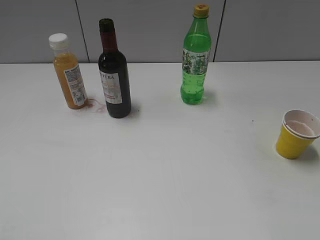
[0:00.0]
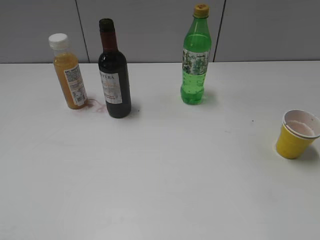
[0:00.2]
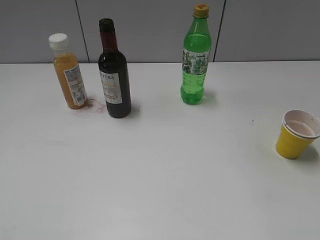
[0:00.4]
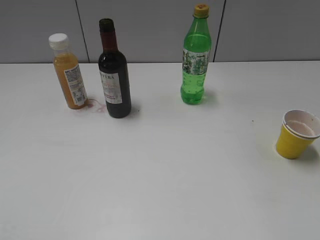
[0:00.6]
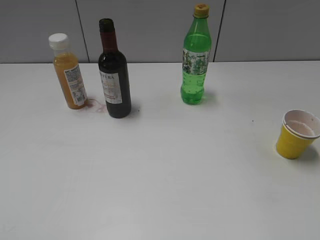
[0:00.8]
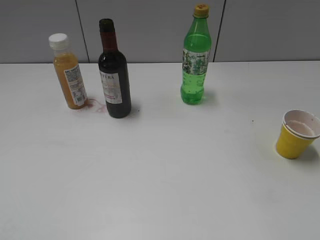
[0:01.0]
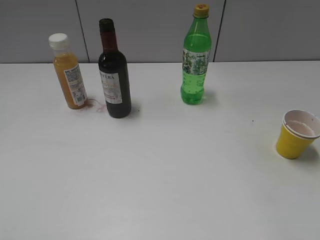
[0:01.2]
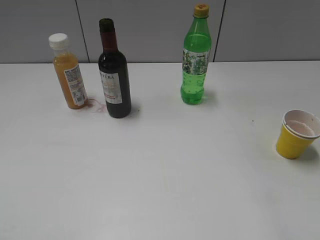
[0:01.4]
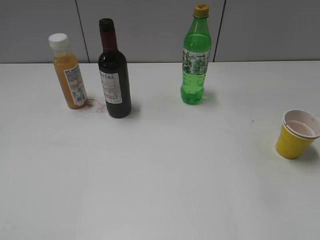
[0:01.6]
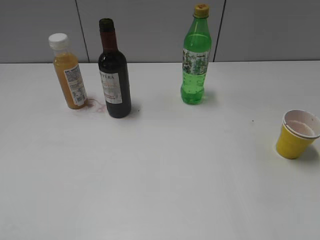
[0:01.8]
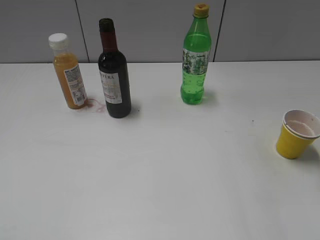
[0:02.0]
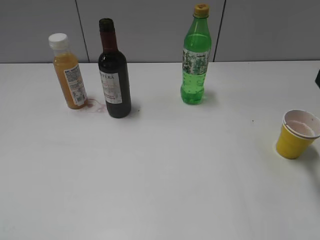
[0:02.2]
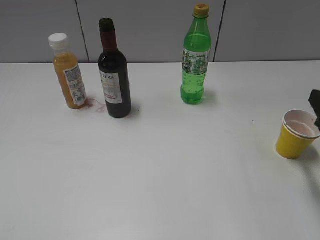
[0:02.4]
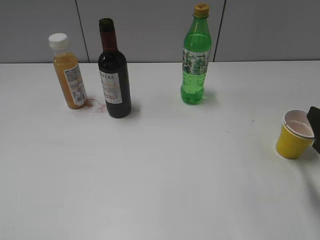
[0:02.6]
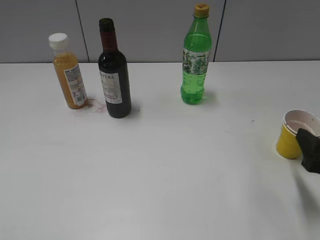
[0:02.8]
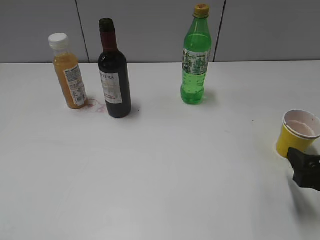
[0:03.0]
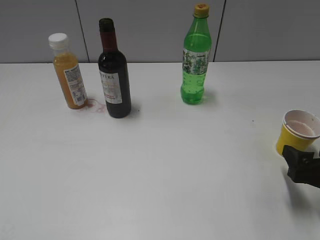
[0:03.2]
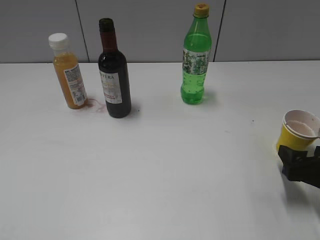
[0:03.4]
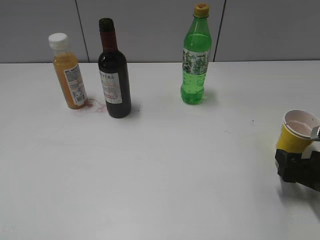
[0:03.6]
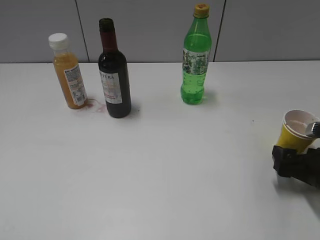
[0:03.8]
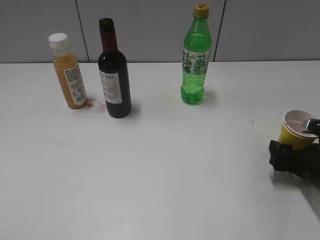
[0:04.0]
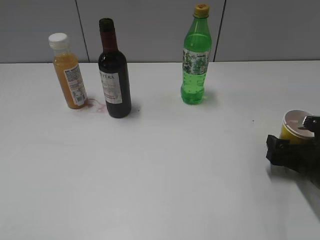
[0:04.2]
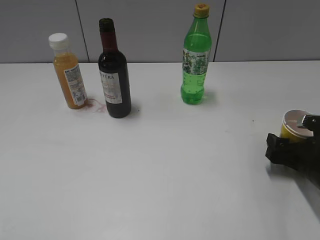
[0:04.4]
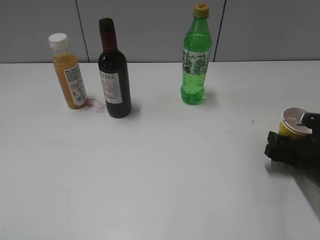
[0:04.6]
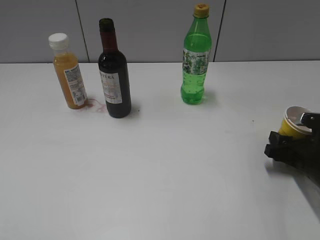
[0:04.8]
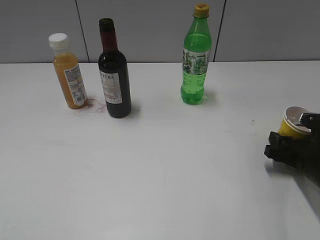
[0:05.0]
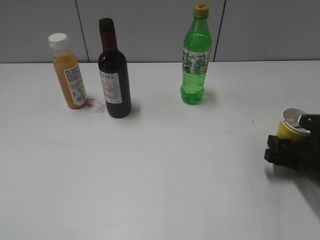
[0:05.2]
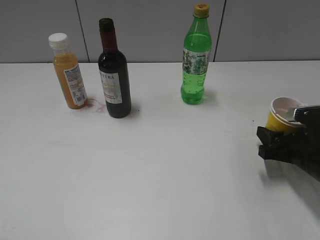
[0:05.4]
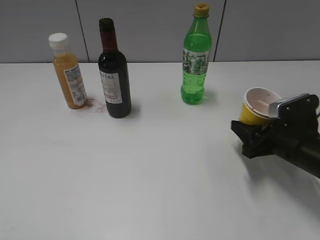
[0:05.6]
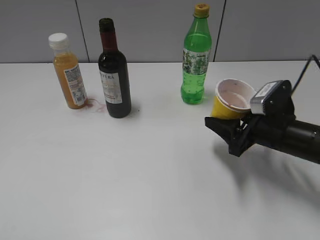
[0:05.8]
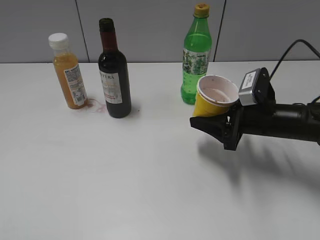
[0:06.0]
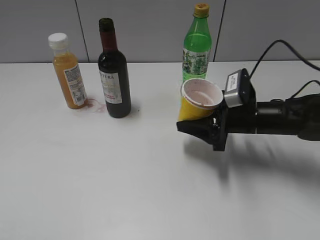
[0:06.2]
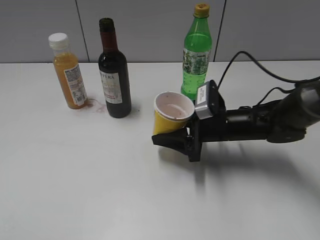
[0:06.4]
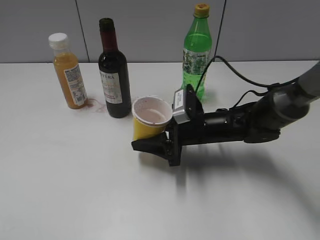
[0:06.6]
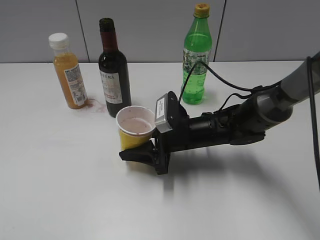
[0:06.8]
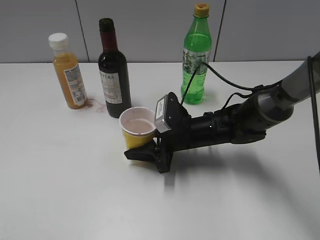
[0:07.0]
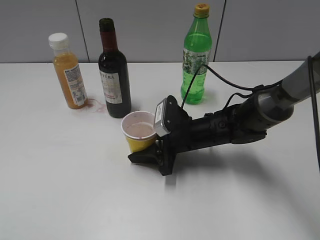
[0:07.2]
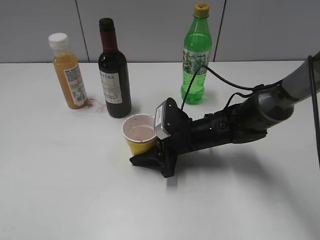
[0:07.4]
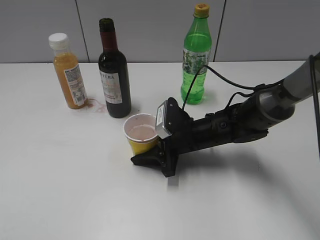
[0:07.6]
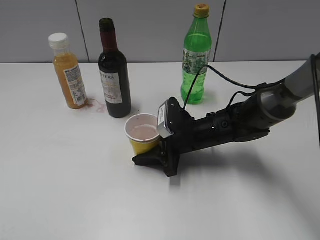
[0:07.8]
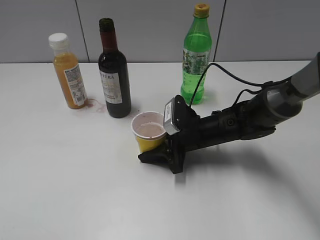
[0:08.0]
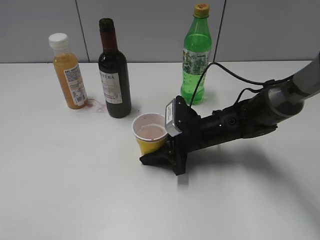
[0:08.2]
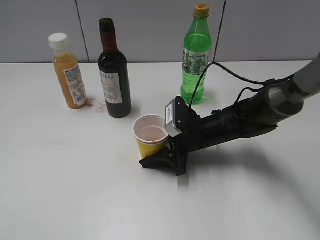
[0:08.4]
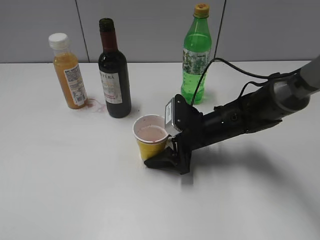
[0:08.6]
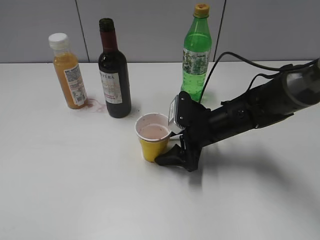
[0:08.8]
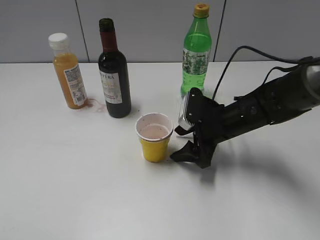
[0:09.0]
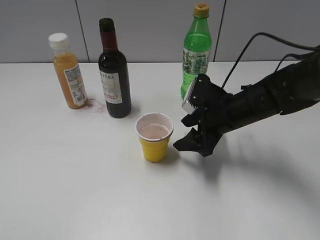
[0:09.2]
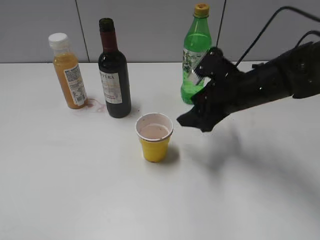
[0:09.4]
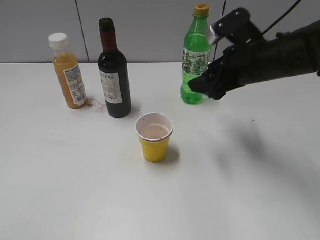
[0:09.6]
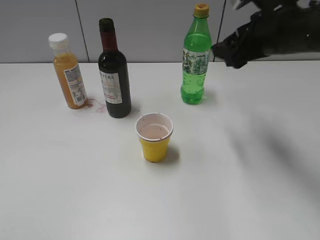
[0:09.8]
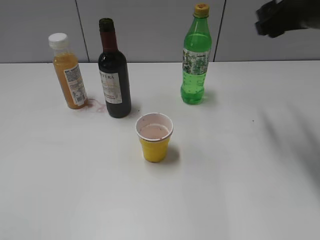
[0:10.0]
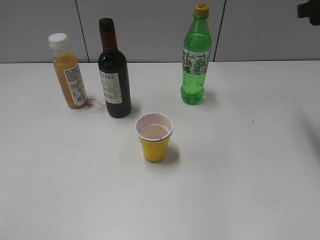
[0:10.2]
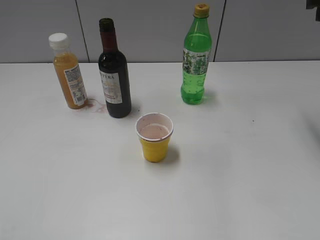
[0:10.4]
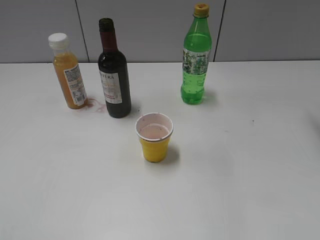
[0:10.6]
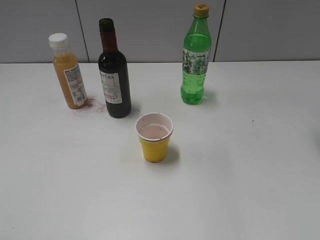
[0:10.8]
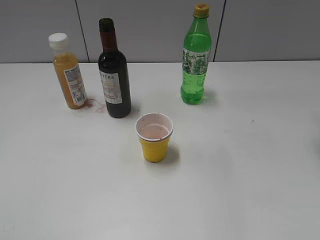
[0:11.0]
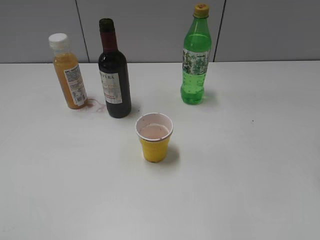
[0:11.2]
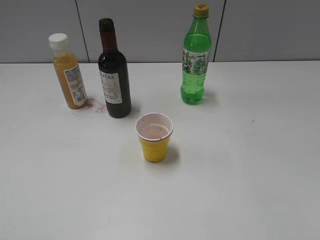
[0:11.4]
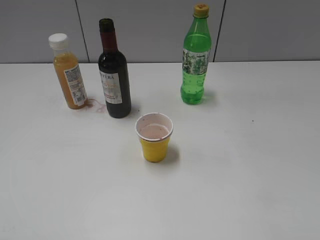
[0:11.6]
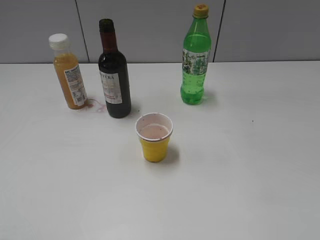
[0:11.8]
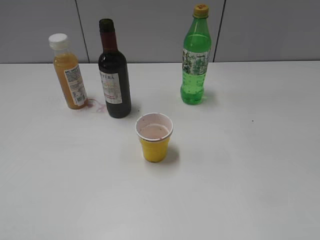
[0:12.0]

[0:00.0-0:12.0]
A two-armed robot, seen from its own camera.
Step, 0:00.8 to 0:05.0: Grasp the yellow paper cup with right gripper.
Step, 0:05.2 to 0:08.8: Place the yellow paper cup on the table with right gripper.
0:01.6 to 0:03.0: The right gripper heads downward, covering some 25 cm.
0:03.0 to 0:04.4: The right gripper goes some 10 cm forward and downward.
0:04.4 to 0:06.0: The right gripper is displaced to the left, forward and upward by roughly 10 cm, and closes its fingers.
0:06.0 to 0:07.6: The right gripper moves to the left and downward, some 15 cm.
0:07.6 to 0:09.0: The right gripper shifts about 5 cm to the right, and opens up.
0:09.0 to 0:10.4: The right gripper is displaced upward and to the right by about 30 cm.

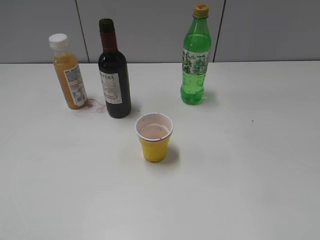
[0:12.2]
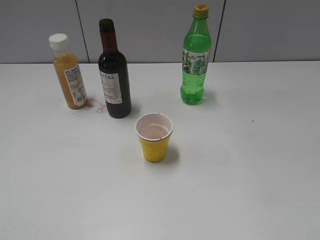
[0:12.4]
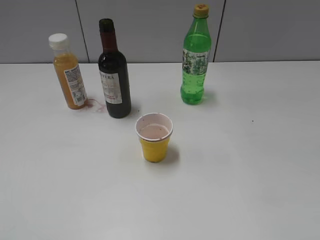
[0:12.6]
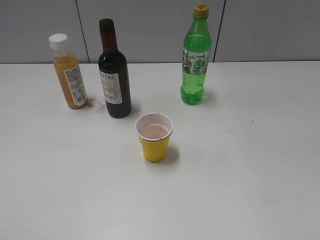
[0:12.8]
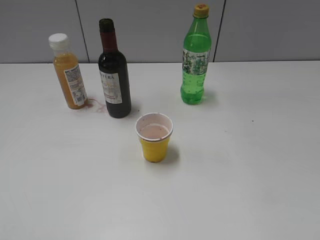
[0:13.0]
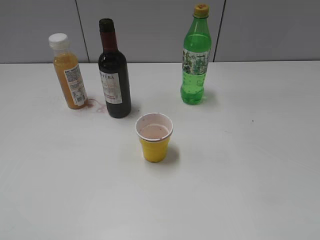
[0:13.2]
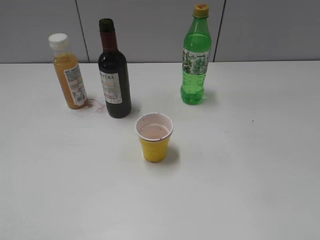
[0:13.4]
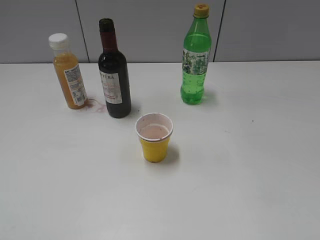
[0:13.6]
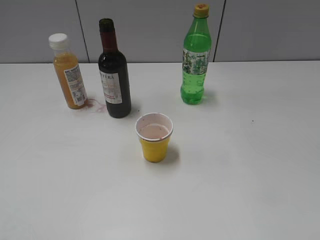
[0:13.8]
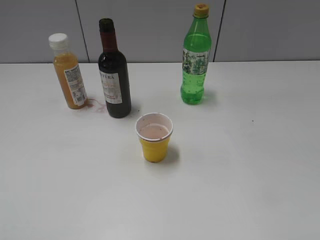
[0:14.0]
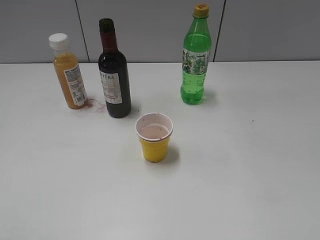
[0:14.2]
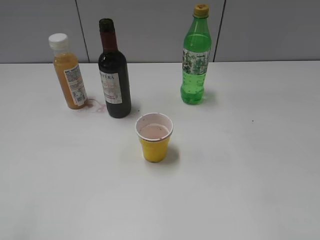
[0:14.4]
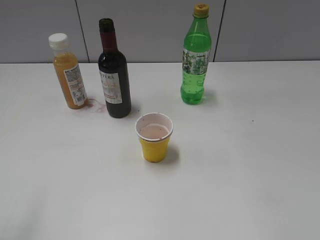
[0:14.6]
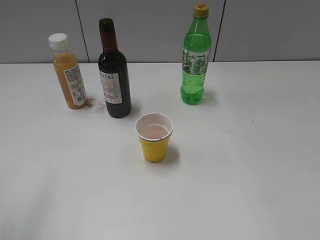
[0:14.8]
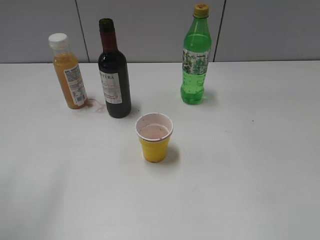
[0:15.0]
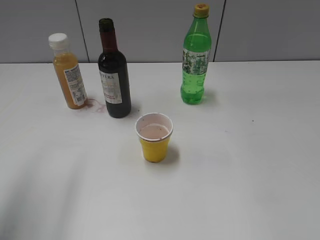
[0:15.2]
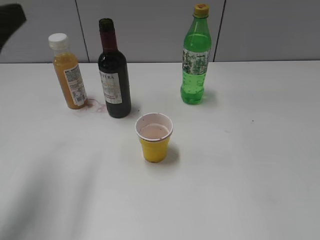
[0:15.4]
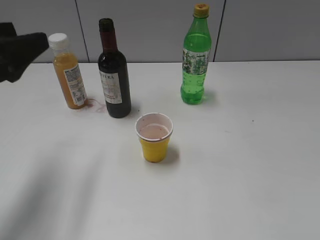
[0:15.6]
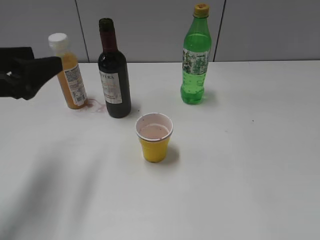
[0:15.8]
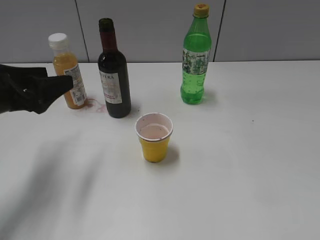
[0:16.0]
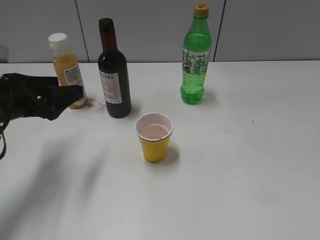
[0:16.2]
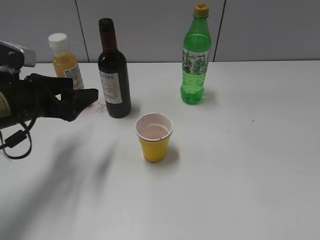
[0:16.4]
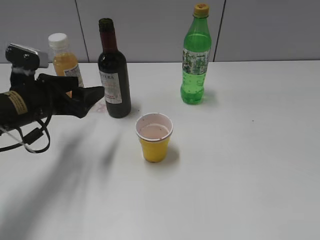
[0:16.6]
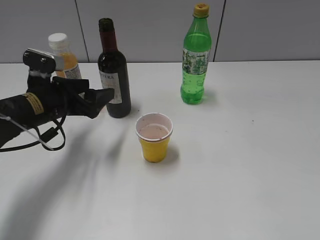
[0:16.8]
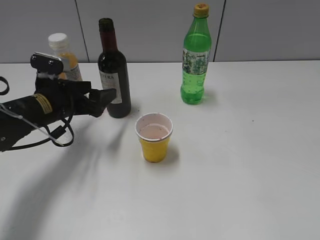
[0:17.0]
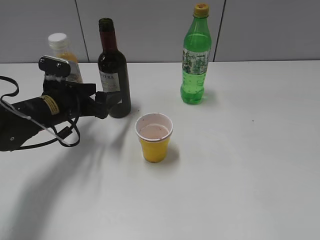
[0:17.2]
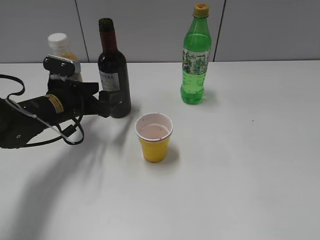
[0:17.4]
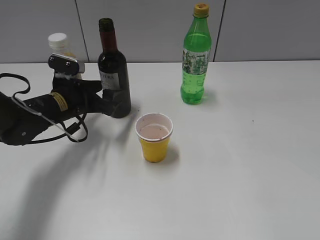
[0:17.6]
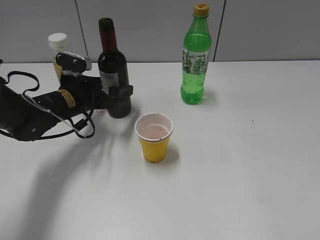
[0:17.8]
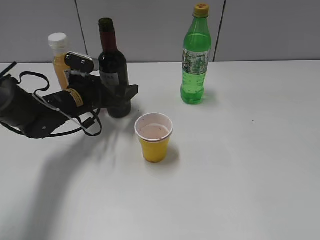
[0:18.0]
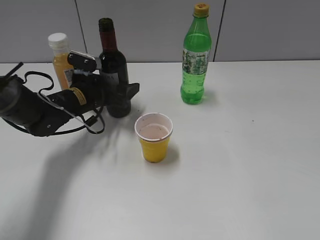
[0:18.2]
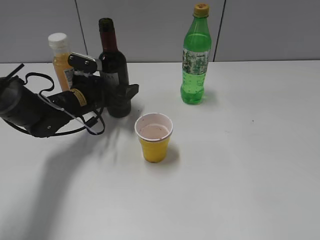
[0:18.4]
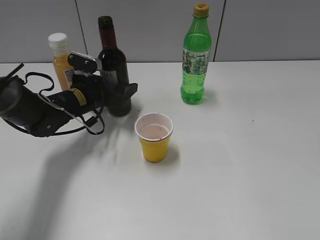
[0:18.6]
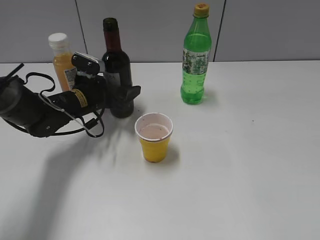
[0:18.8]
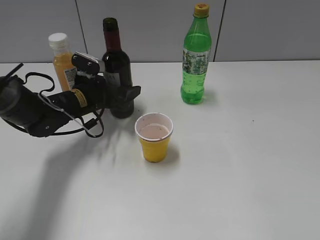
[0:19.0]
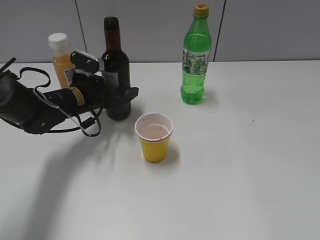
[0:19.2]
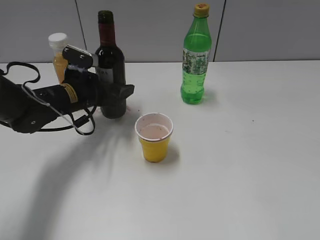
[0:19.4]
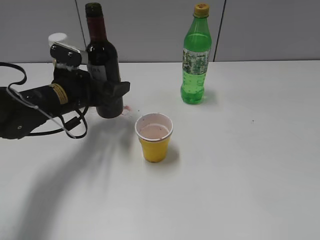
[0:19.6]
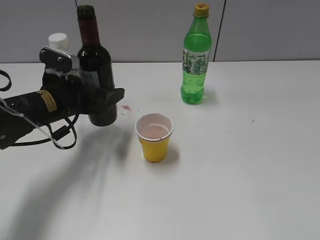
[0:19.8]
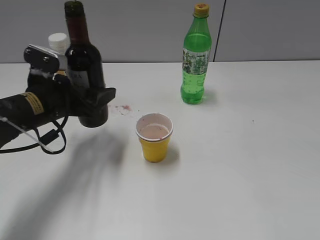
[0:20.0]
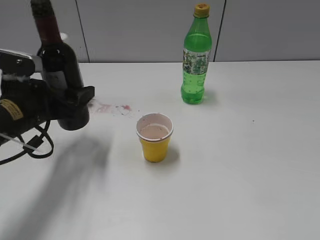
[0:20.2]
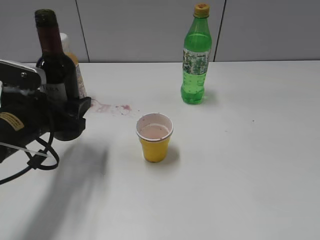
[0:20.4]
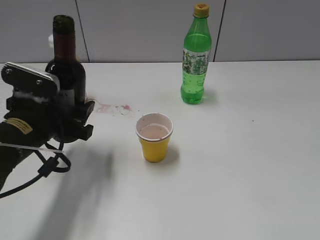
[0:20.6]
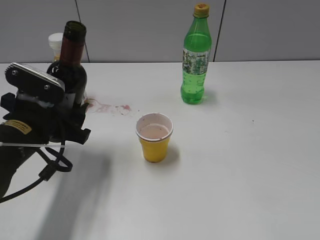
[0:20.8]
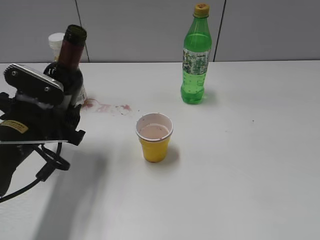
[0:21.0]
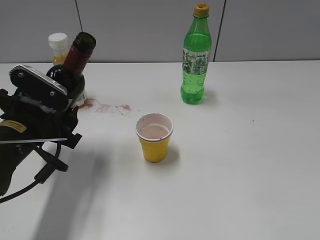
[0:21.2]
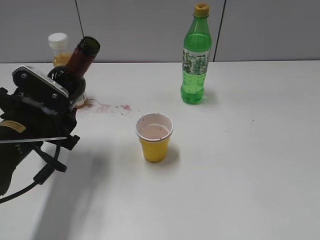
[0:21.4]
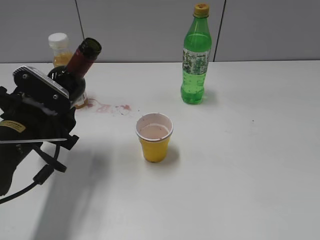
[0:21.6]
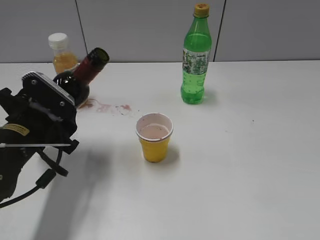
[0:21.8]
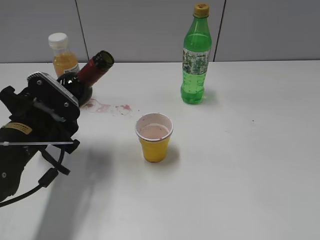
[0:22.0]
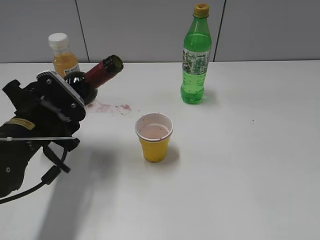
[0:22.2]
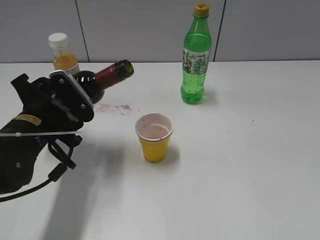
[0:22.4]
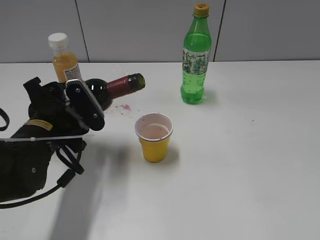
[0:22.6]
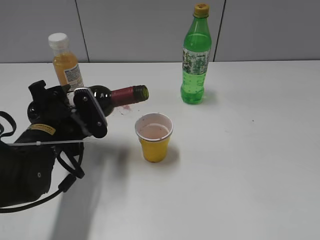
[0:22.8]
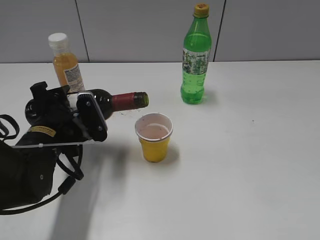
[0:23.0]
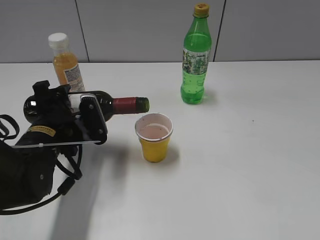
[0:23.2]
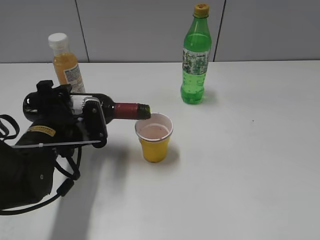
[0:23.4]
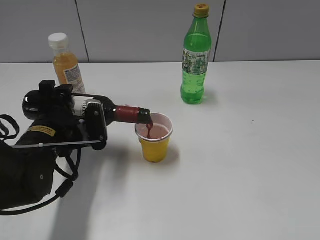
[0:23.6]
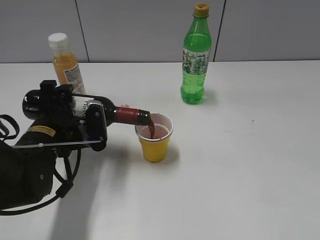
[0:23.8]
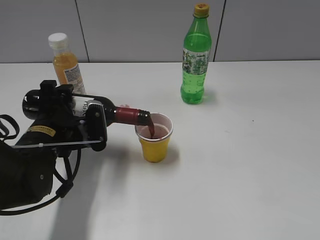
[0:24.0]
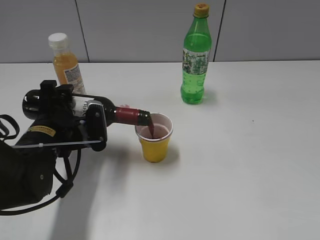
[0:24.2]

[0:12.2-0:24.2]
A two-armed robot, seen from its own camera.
Step, 0:12.2 to 0:18.6: Grasp the bottle with red wine with left gripper.
0:13.8 to 0:15.2: The left gripper shifts some 20 cm forward.
0:15.2 to 0:16.6: The left gripper travels downward, forward and to the right by some 20 cm.
0:16.6 to 0:18.2: The left gripper moves forward, downward and to the right, roughly 15 cm.
0:18.2 to 0:19.8: The left gripper is displaced backward and upward by approximately 10 cm.
0:19.8 to 0:21.2: The left gripper travels backward by about 10 cm.
